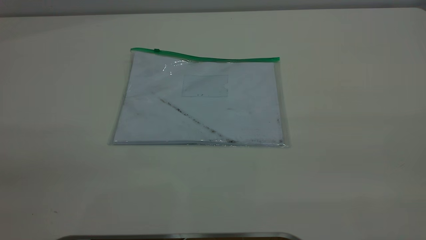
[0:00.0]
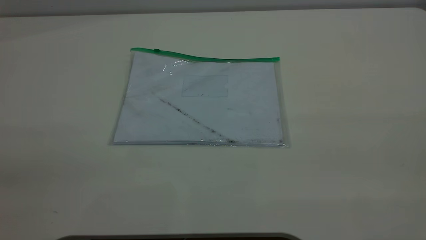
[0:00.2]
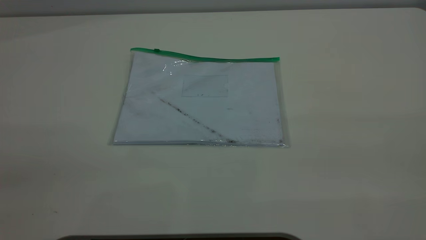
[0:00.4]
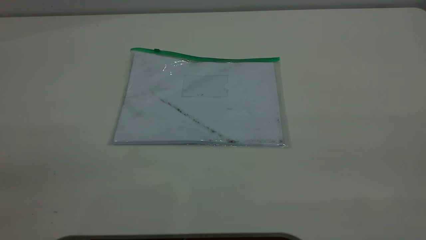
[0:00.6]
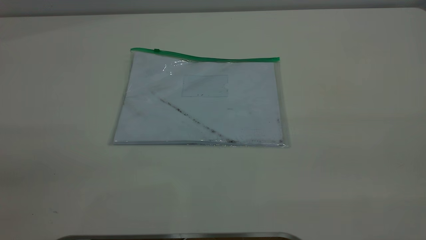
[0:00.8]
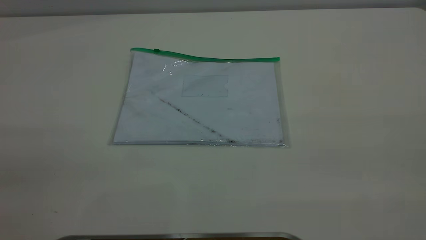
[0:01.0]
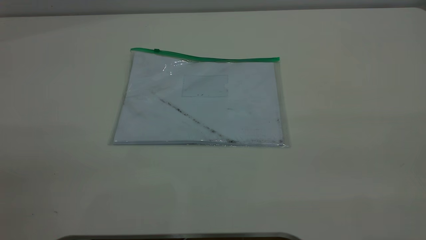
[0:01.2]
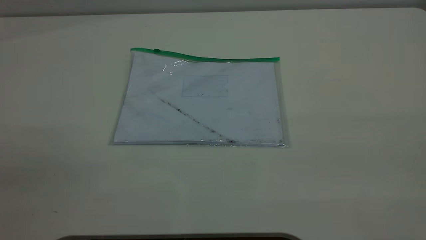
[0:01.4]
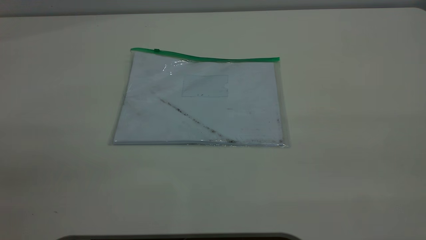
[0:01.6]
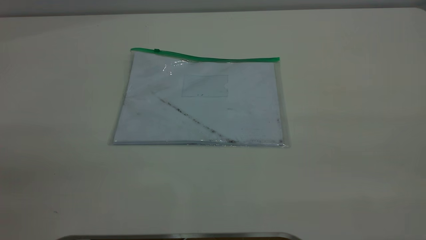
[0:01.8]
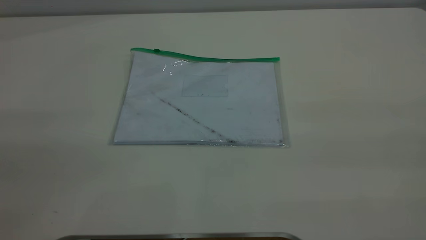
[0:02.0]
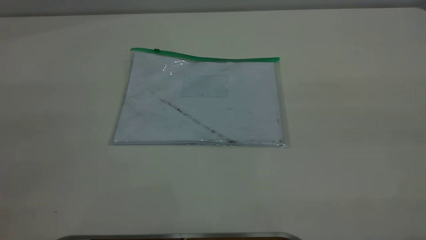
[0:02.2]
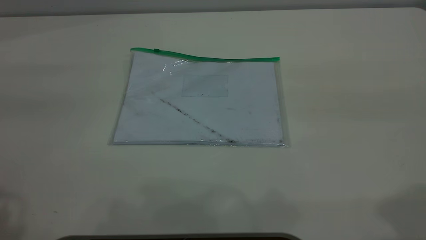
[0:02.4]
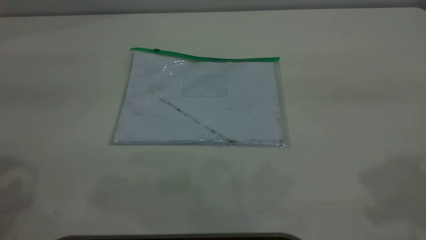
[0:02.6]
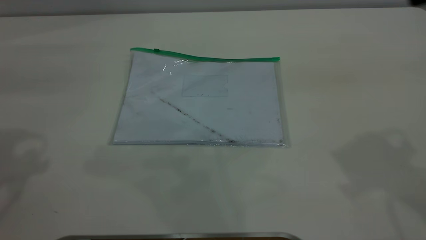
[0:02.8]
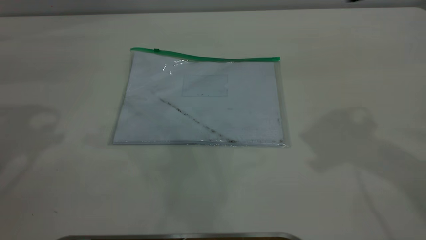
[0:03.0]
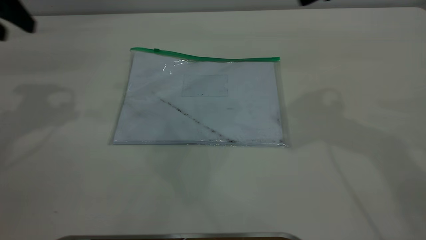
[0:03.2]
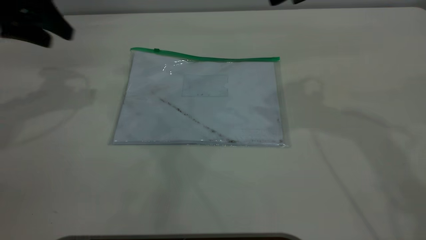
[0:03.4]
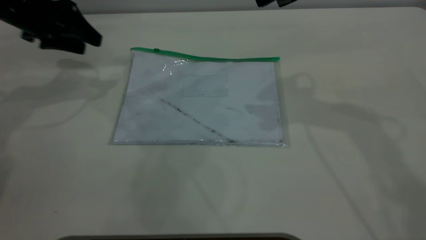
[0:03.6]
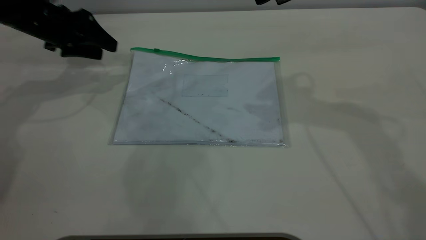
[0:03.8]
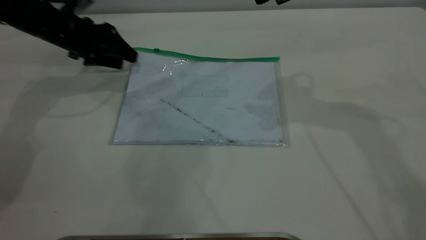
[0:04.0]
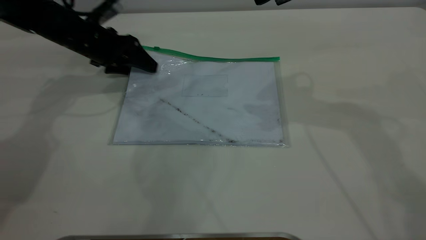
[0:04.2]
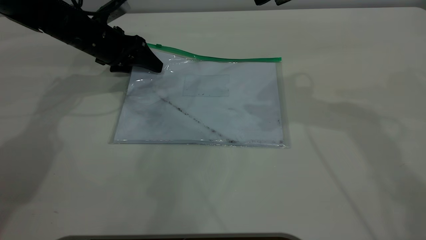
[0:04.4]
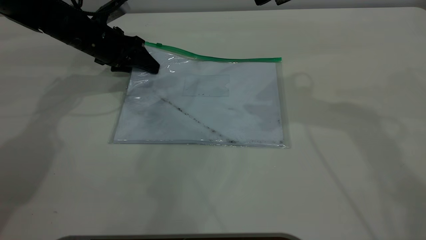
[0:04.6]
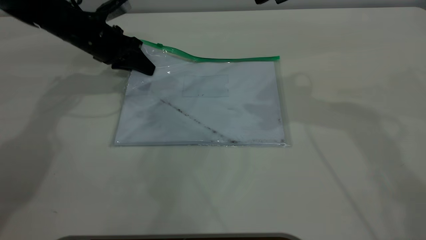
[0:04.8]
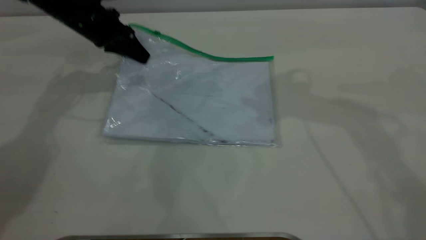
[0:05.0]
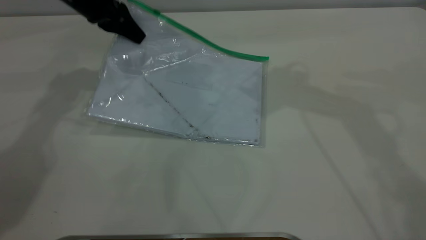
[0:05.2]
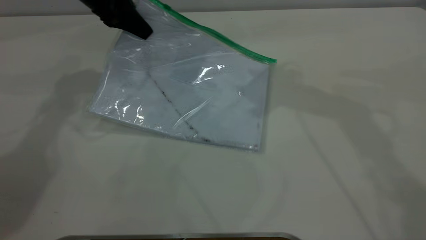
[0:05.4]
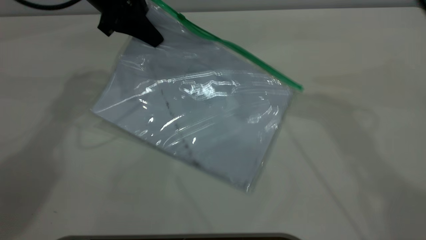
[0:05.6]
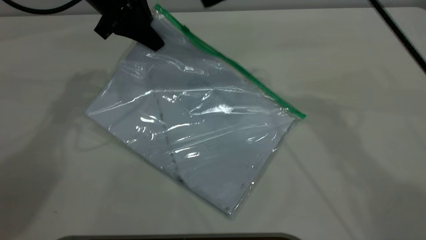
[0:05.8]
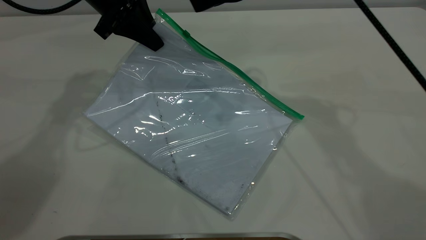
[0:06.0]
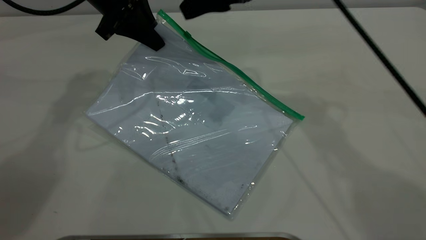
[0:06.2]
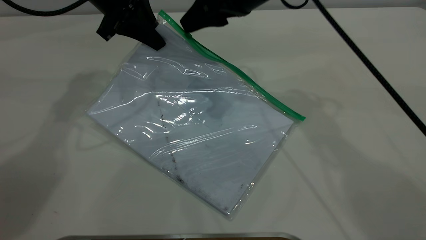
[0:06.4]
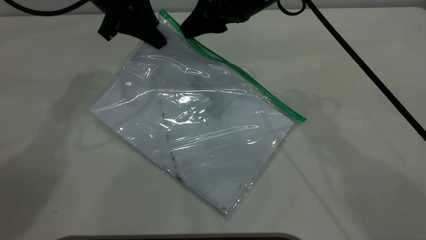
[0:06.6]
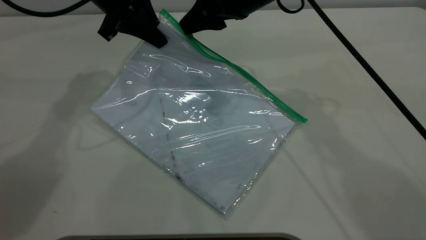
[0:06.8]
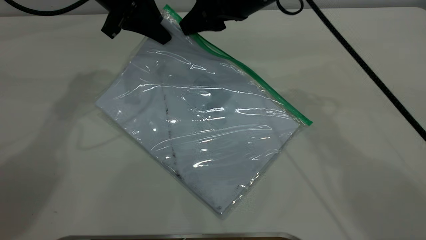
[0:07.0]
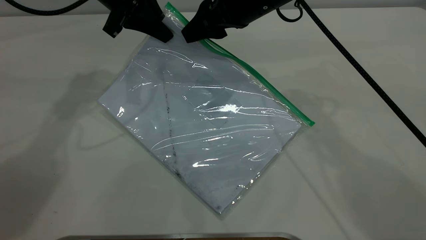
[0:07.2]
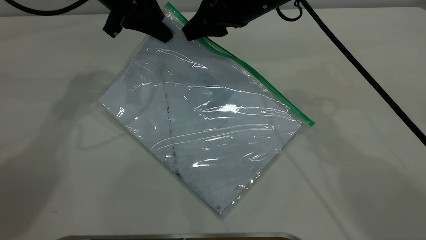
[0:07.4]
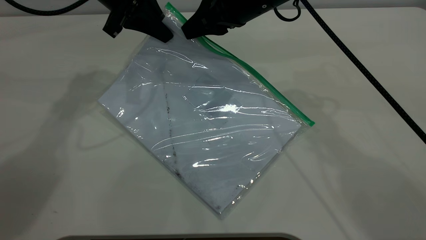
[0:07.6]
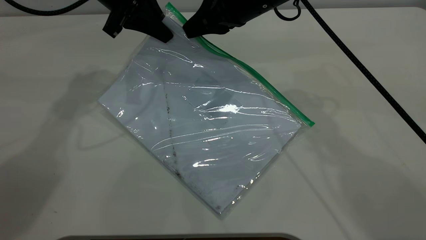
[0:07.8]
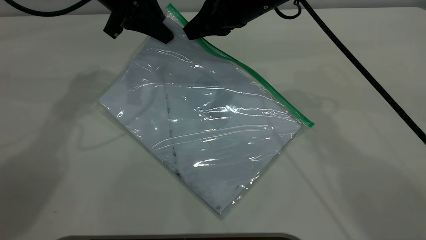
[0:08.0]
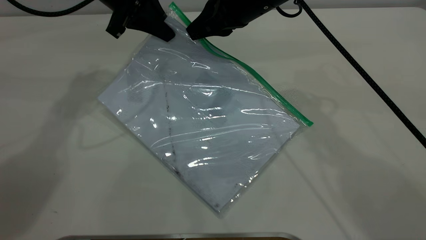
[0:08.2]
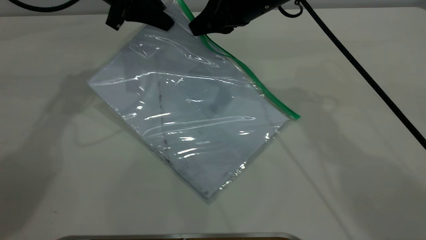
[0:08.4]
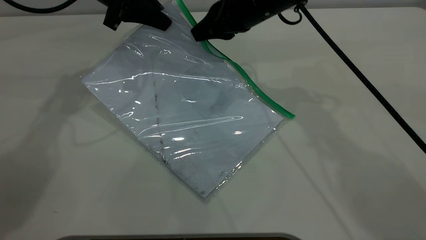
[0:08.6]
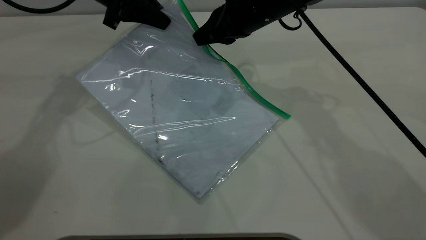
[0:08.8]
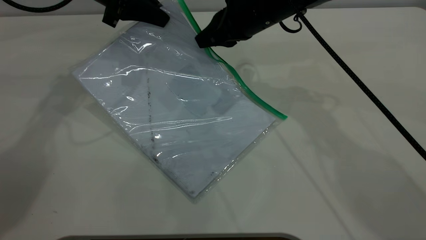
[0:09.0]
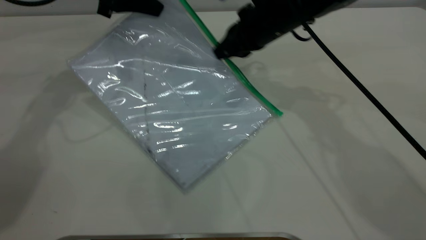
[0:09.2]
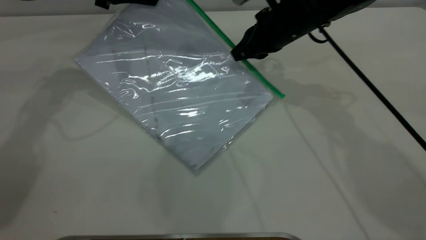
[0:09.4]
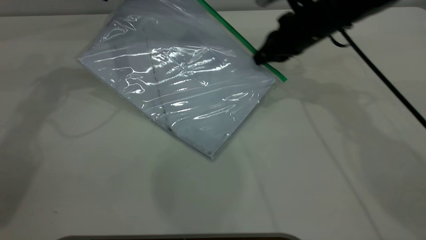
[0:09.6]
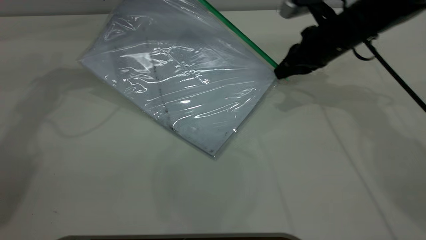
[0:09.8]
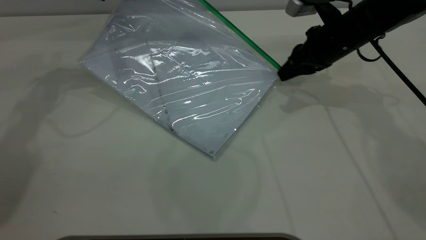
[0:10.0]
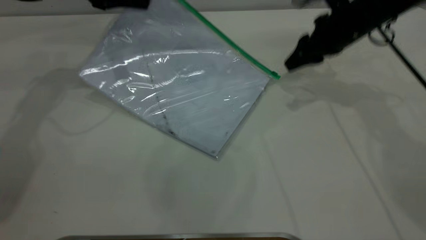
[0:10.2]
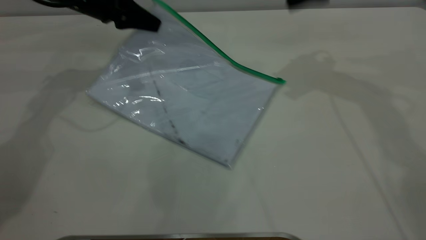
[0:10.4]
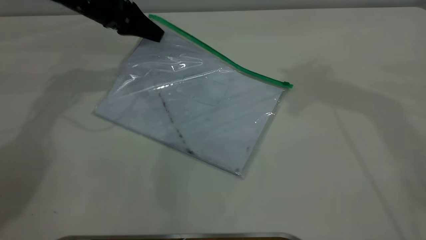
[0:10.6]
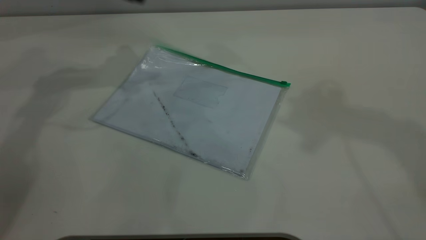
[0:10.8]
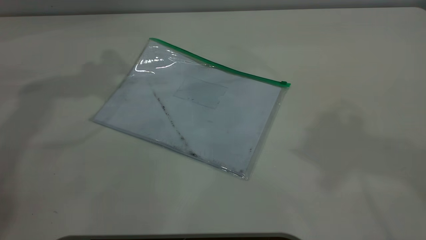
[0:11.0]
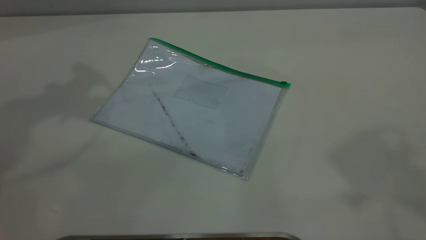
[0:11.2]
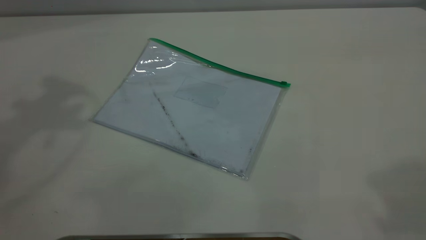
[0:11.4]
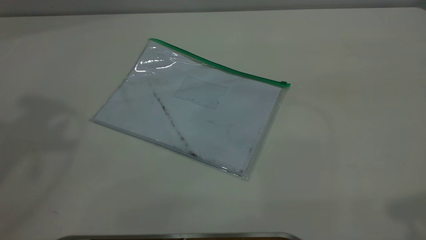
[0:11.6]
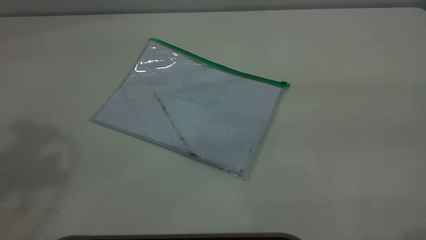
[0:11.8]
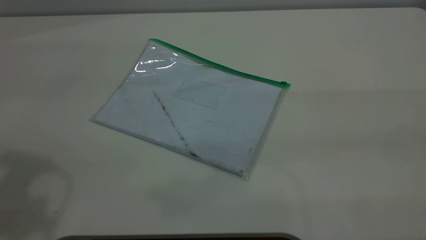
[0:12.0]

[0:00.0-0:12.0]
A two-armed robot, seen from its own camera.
Step, 0:00.0 to 0:04.8: Pick up the transparent plastic bag with the left gripper.
Step, 0:05.2 to 0:10.0: Pulling up the zipper on the transparent plastic bag with the right gripper to close it.
Step, 0:10.2 to 0:10.6: Place the transparent plastic bag.
0:00.0 to 0:01.6: Both grippers stay about where they are.
0:01.6 to 0:03.0: The grippers both shift forward by roughly 30 cm.
0:03.0 to 0:04.4: The right gripper is displaced forward and to the left by about 10 cm, while the left gripper is displaced downward, forward and to the right by some 25 cm.
0:04.4 to 0:06.0: The right gripper goes roughly 10 cm to the left. Meanwhile the left gripper travels upward and to the right by some 15 cm, and closes up.
0:06.0 to 0:07.6: The right gripper shifts some 5 cm downward, and closes its fingers.
0:07.6 to 0:09.0: The right gripper changes place by approximately 5 cm.
0:09.0 to 0:10.4: The left gripper shifts by roughly 5 cm; the right gripper heads to the right and upward, covering approximately 15 cm, and opens up.
0:10.4 to 0:12.0: The right gripper heads backward, covering approximately 35 cm. Meanwhile the left gripper moves backward and upward, roughly 40 cm, and opens.
